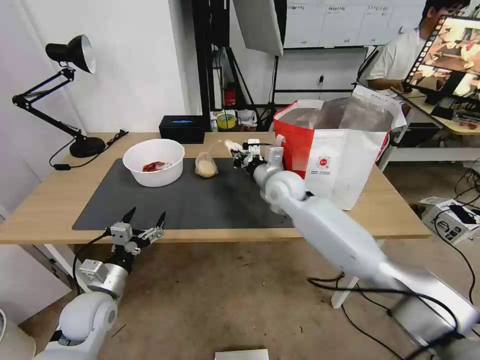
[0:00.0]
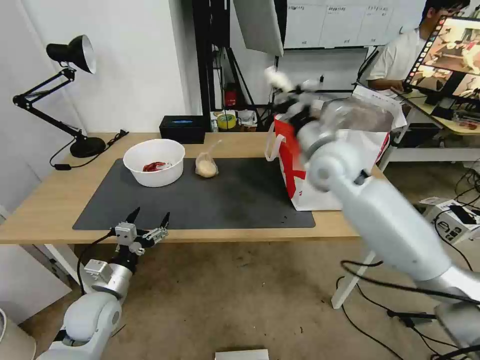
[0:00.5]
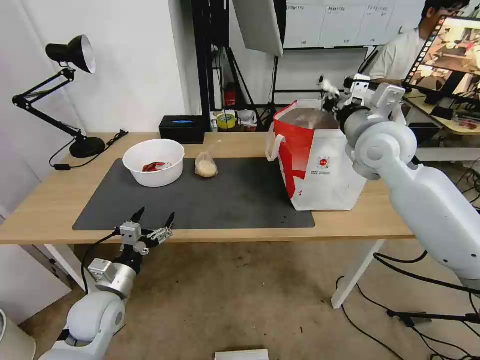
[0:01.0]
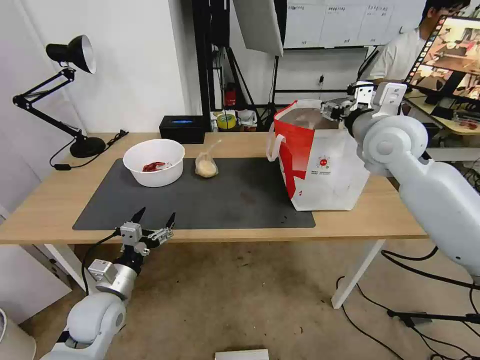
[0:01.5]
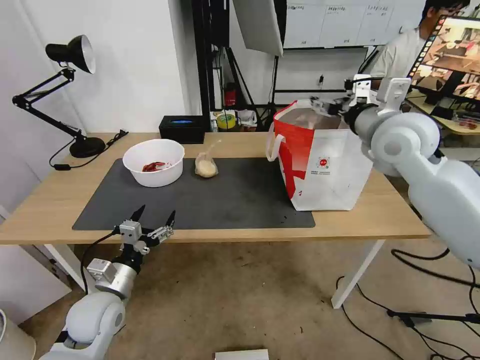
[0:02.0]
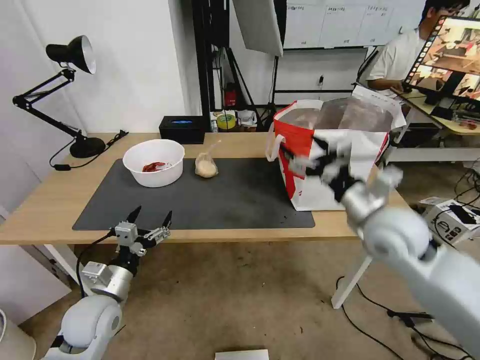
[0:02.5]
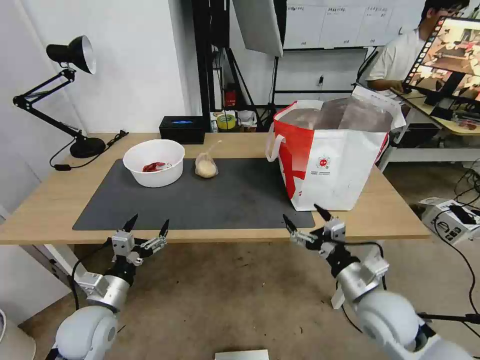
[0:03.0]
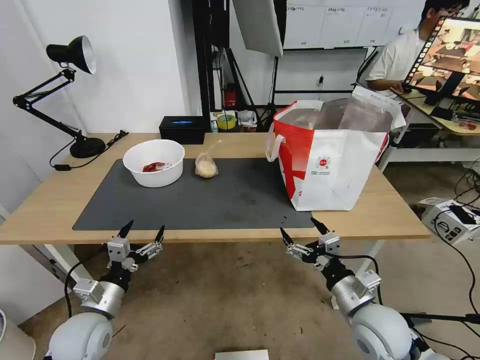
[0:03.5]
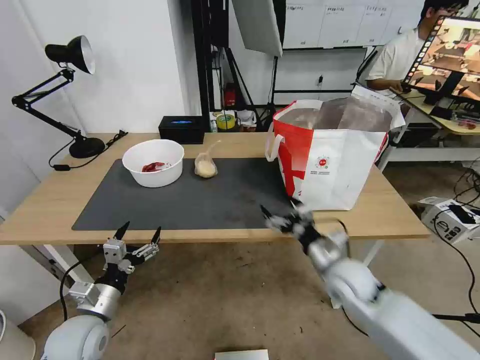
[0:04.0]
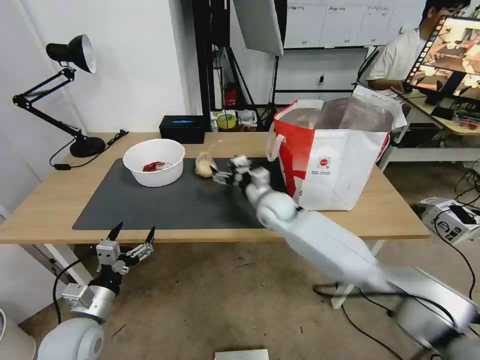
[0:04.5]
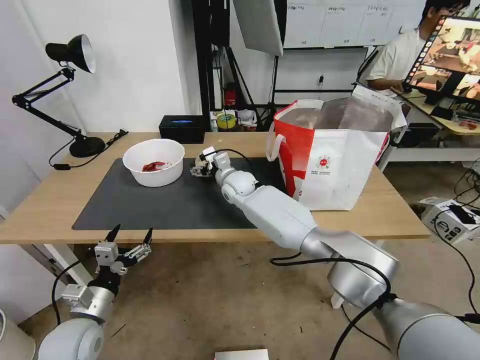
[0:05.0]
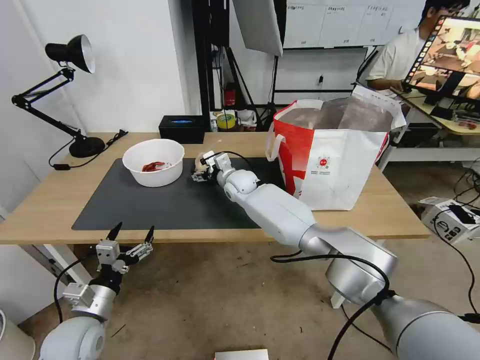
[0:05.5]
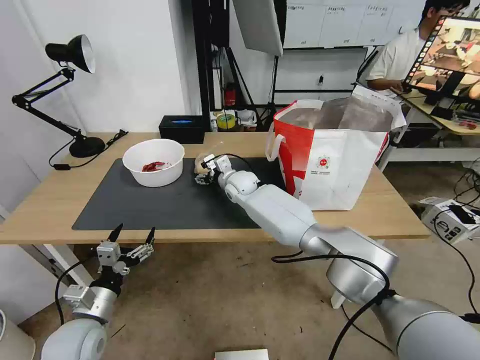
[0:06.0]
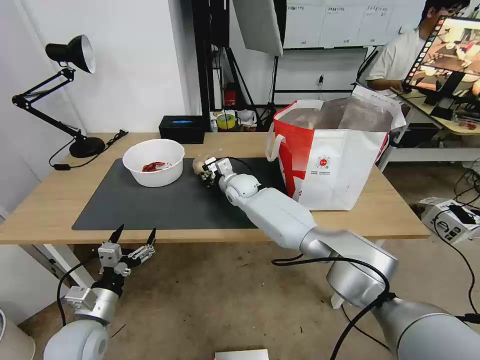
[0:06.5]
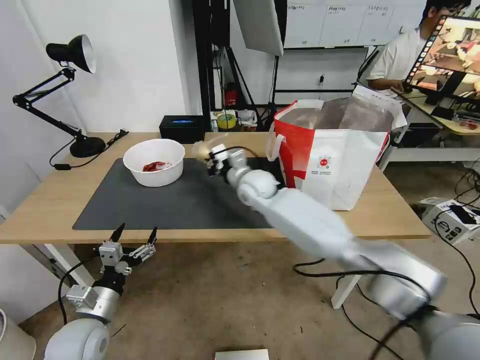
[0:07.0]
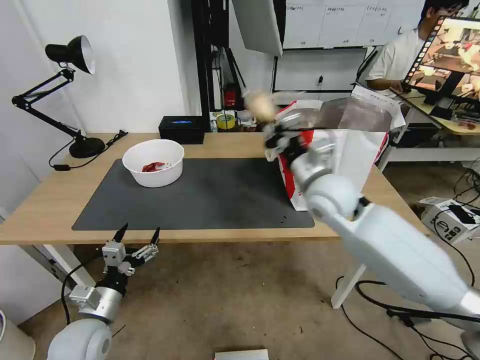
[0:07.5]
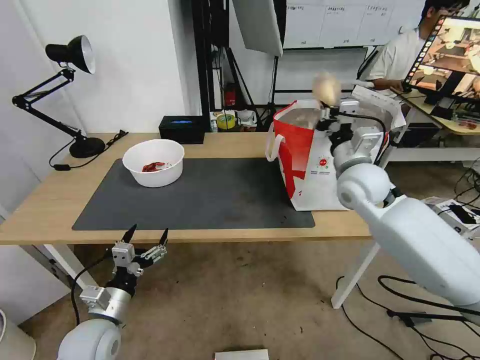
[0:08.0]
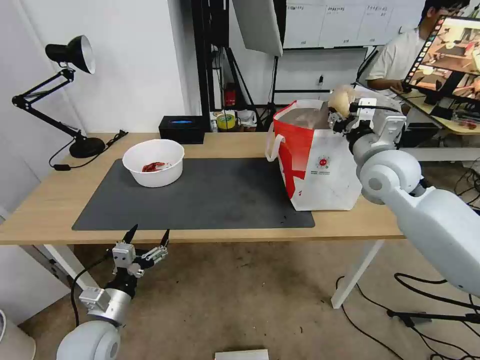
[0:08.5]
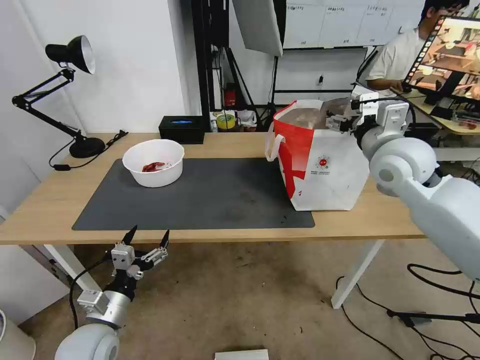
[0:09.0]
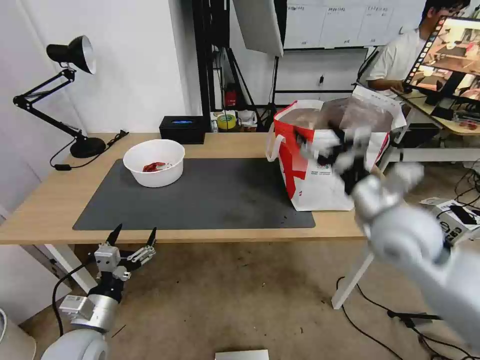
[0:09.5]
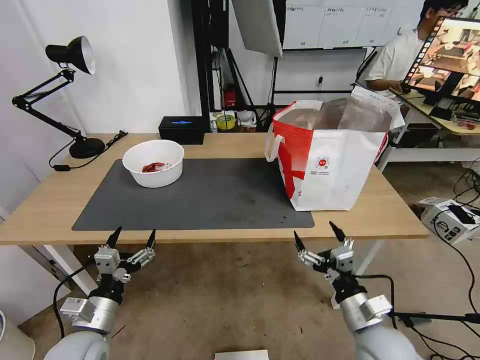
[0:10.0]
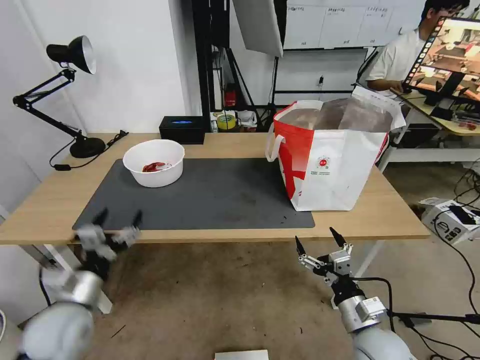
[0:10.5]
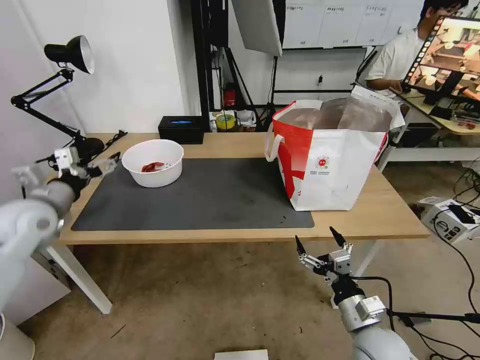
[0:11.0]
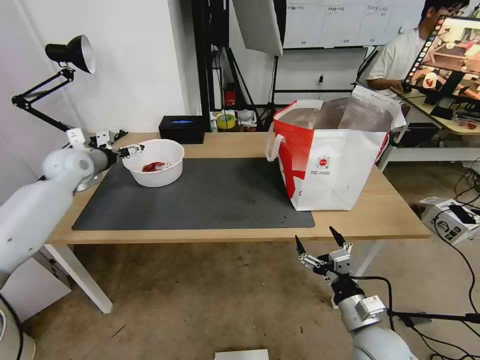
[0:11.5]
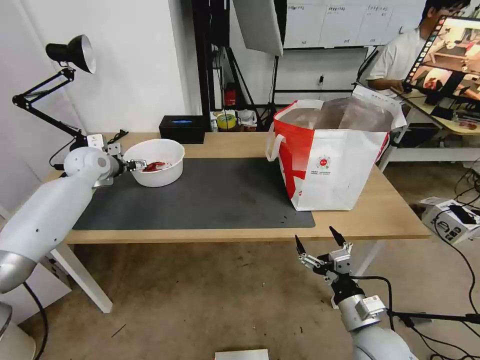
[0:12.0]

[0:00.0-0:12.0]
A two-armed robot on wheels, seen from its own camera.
Task of the whole recording: Pick up the trash from the table and place it into the takeout bag.
0:00.0 to 0:02.0: The right gripper heads upward and to the right, covering about 25 cm, and opens.
0:02.0 to 0:04.0: The left gripper changes place by roughly 5 cm; the right gripper moves downward and backward, some 30 cm.
0:04.0 to 0:06.0: The right gripper shifts some 35 cm forward and to the left.
0:06.0 to 0:08.0: The right gripper travels to the right, backward and upward by approximately 30 cm, and closes up.
0:08.0 to 0:10.0: The right gripper is displaced backward and downward by about 30 cm, and opens up.
0:10.0 to 0:12.0: The left gripper is displaced forward and upward by about 40 cm.

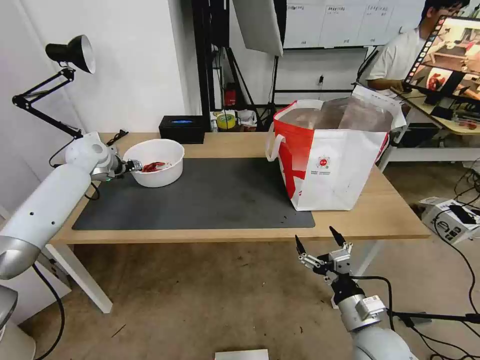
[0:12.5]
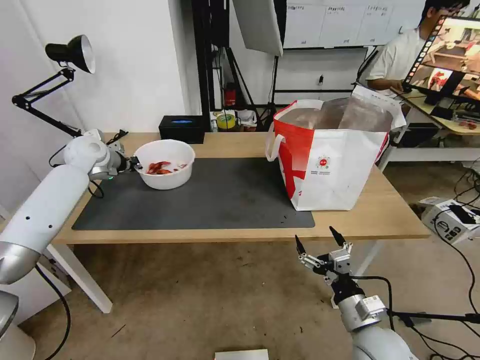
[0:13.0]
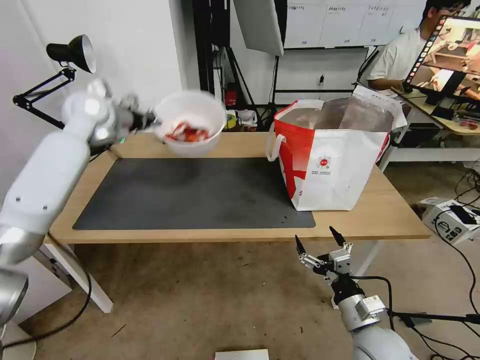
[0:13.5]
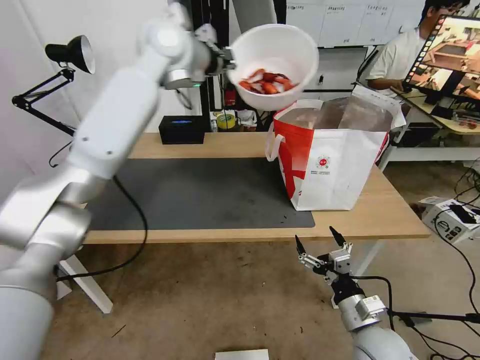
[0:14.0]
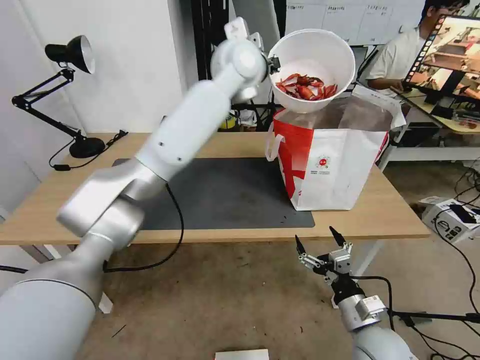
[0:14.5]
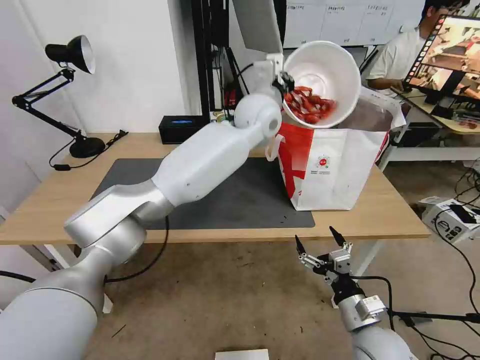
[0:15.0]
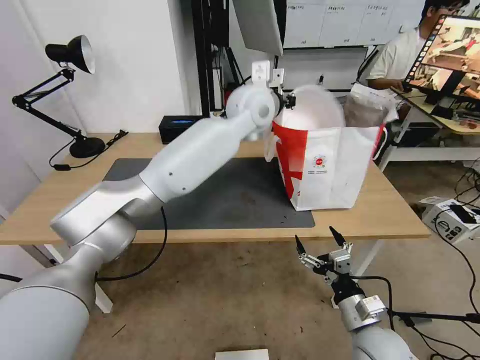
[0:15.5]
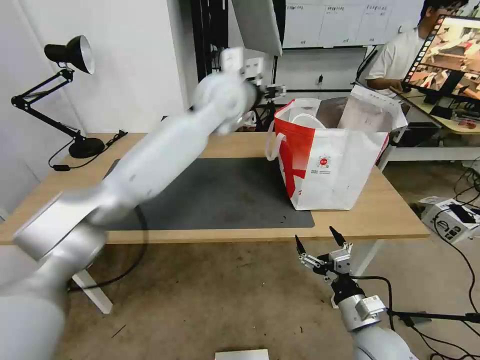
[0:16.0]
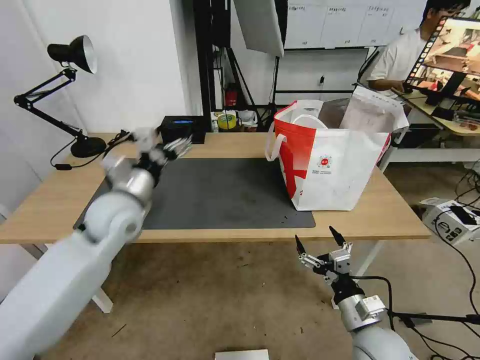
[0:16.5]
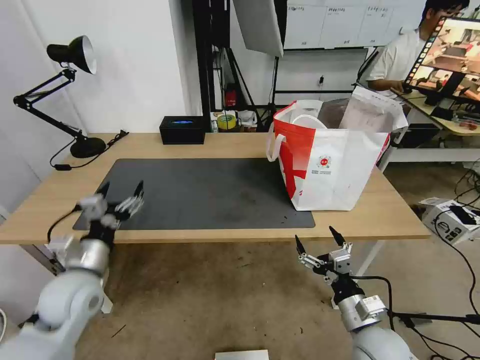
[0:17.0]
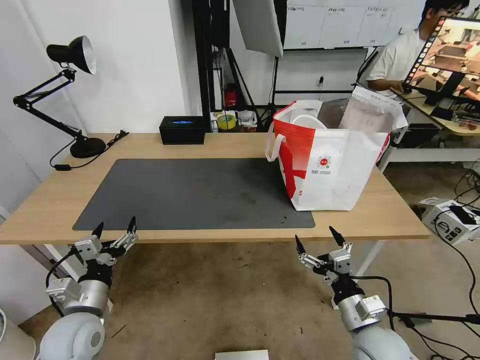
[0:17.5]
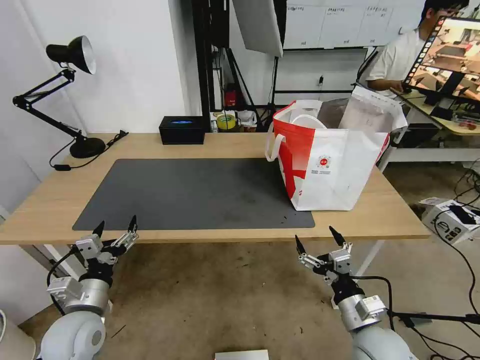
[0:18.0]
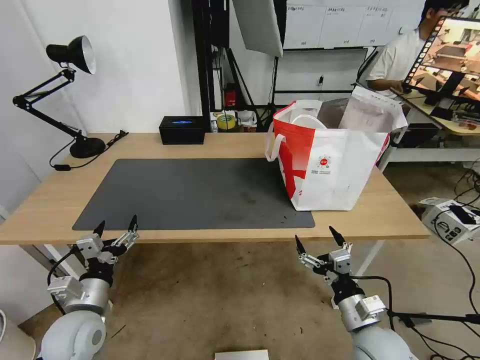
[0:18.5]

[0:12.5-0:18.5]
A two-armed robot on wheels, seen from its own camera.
Task of the whole recording: Pick up the trash from the table and place it into the takeout bag.
0:12.5 to 0:14.5: The left gripper goes some 40 cm to the right and upward, and closes.
0:14.5 to 0:16.5: The left gripper goes some 40 cm to the left, downward and backward, and opens its fingers.
0:16.5 to 0:18.5: The left gripper heads backward, downward and to the left, covering approximately 25 cm.
